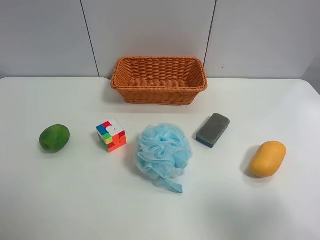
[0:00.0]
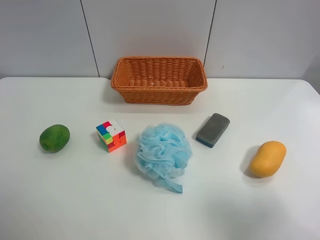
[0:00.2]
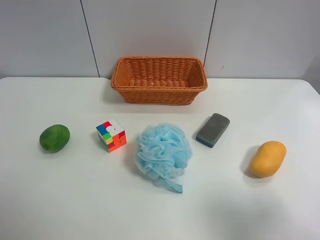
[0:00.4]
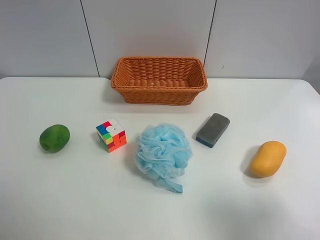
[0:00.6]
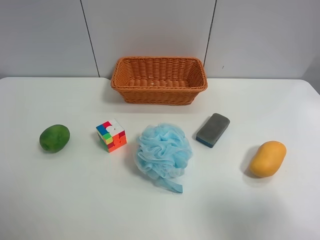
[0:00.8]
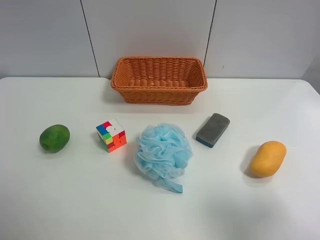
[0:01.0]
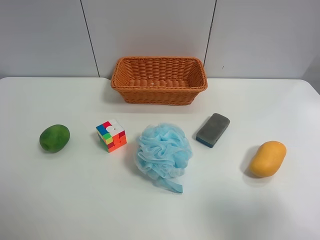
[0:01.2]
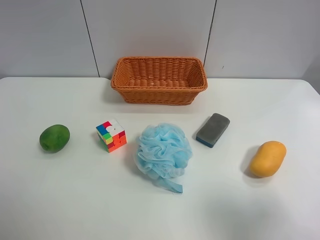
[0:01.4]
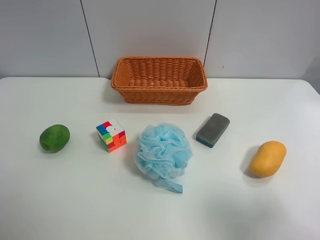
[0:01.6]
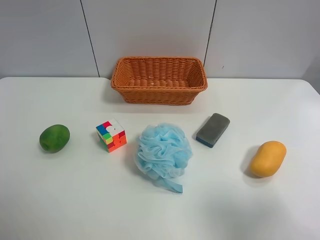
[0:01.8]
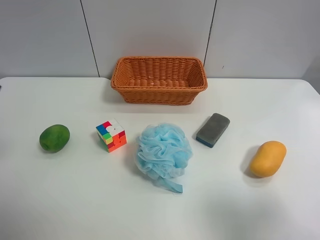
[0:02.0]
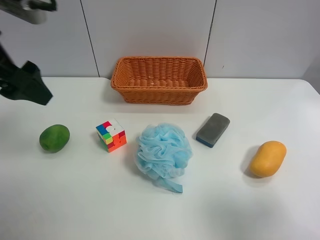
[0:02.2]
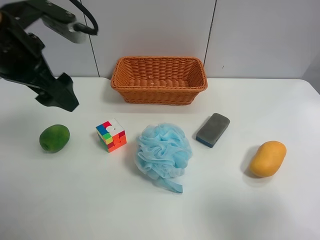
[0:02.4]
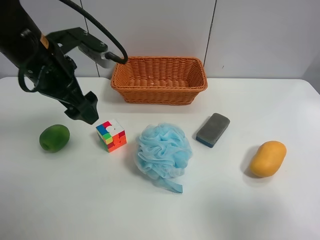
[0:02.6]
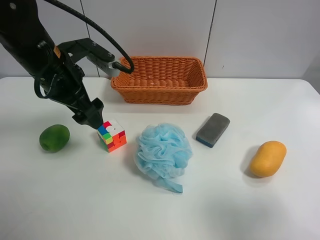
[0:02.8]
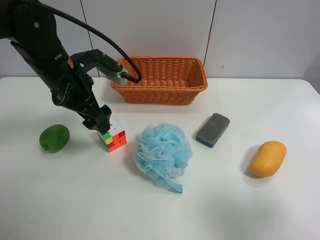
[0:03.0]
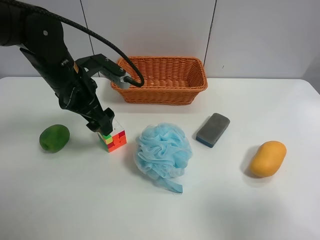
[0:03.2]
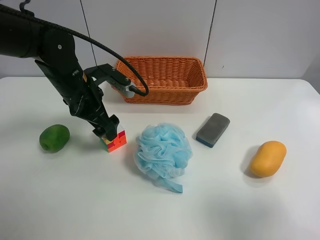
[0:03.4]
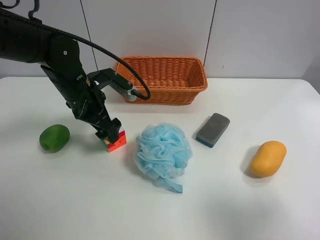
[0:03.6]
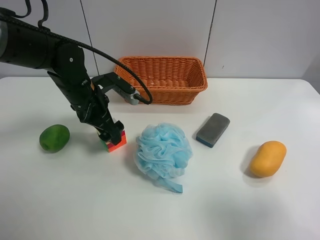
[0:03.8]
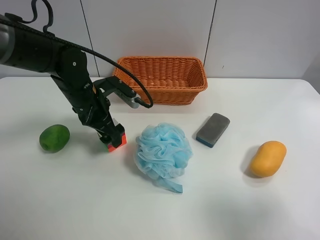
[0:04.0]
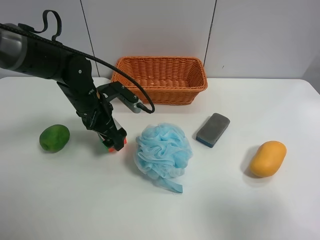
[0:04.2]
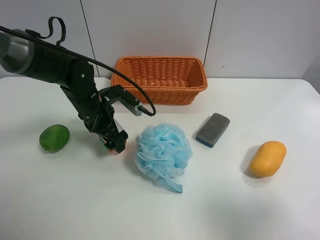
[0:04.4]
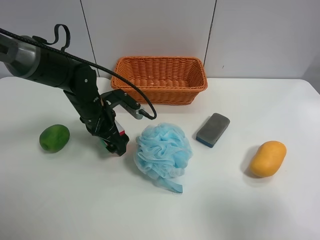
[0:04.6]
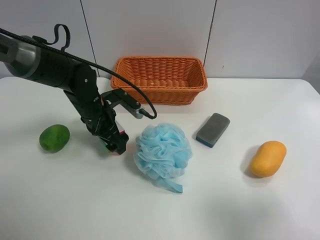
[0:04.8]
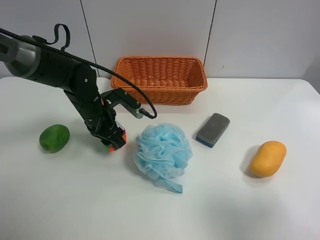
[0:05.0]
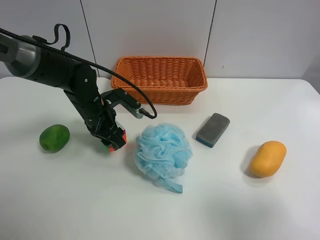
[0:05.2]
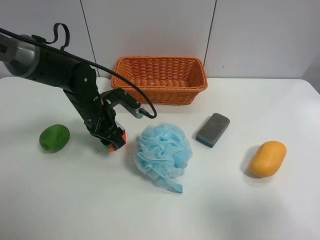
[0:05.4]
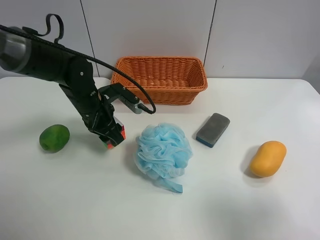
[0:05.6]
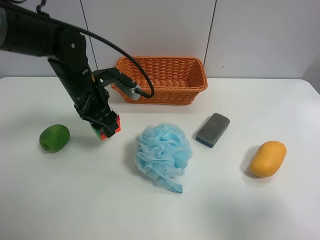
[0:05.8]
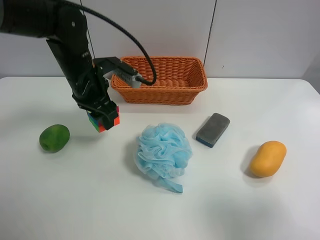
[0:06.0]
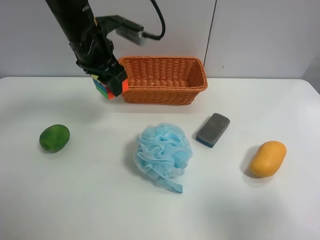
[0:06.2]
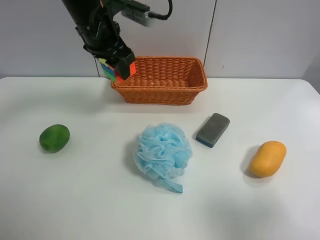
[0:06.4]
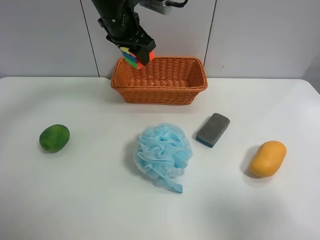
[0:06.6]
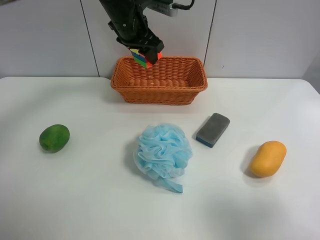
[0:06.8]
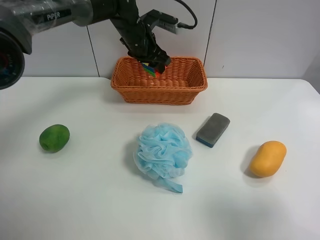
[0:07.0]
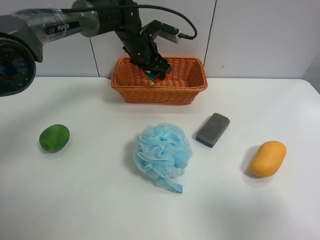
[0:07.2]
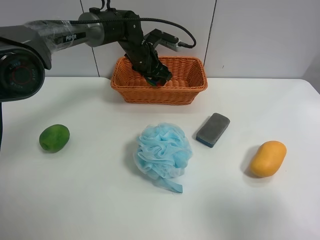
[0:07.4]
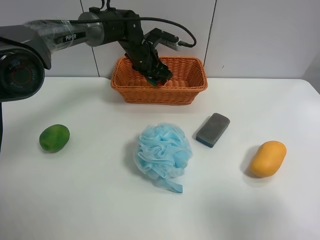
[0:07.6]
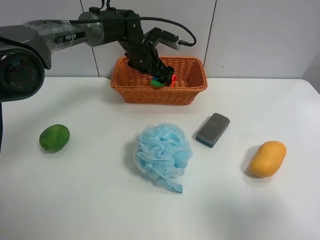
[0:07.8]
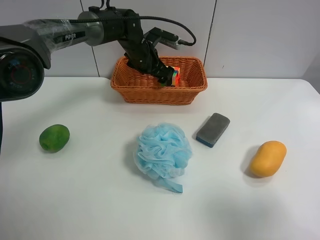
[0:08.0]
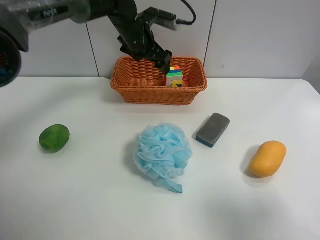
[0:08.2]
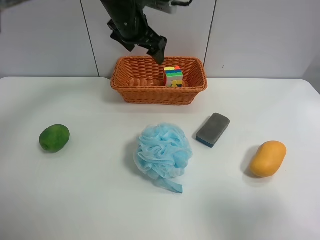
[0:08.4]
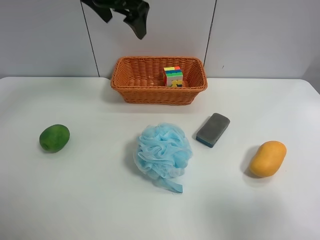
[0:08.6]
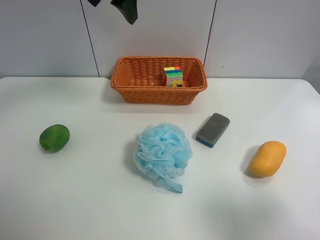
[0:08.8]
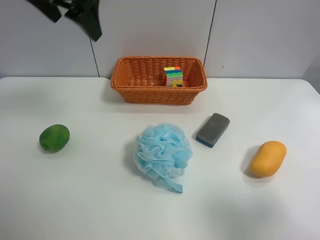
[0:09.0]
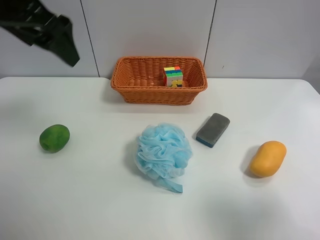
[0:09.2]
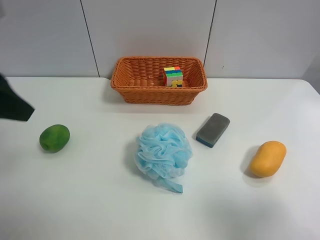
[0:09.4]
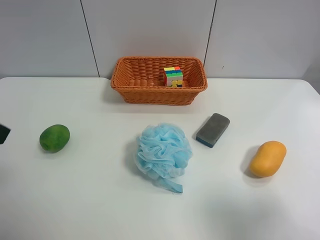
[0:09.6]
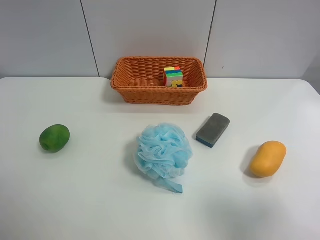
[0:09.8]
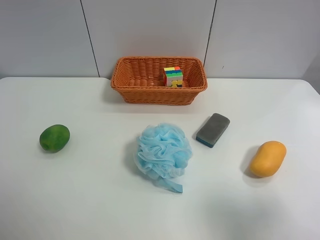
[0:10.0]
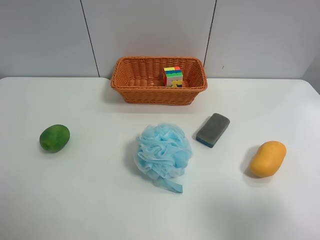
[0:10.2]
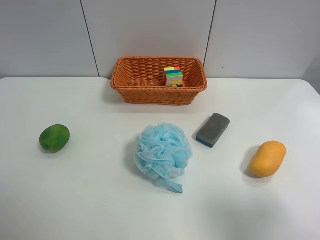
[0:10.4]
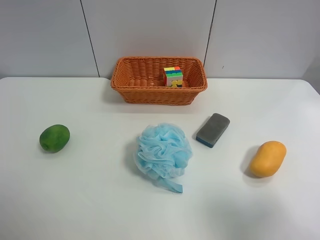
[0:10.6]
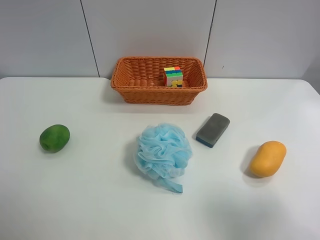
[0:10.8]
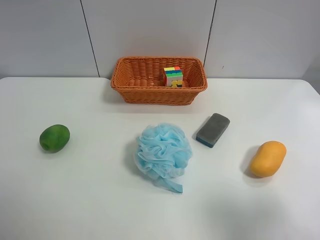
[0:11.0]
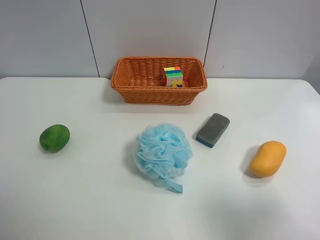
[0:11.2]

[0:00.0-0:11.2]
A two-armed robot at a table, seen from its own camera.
Task of the whole recording: use the left gripper to grab items from the table and place them in the basket.
Step, 0:00.0 to 0:04.8: Grasp the Rubik's Cube with the left gripper.
Step, 0:05.0 to 0:08.0: Place the Rubik's Cube into the basket with the left gripper.
0:01.6 to 0:03.2: The left gripper heads forward, to the right and downward, covering approximately 35 cm.
0:03.2 to 0:04.8: The left gripper goes approximately 10 cm downward, and closes.
0:04.8 to 0:06.4: The left gripper goes about 20 cm upward, and closes its fingers.
0:06.4 to 0:08.0: The left gripper moves downward, forward and to the right, roughly 15 cm, and opens.
0:08.0 to 0:09.6: The left gripper is displaced backward and to the left by approximately 40 cm.
